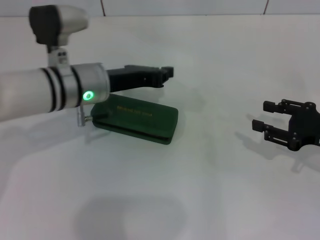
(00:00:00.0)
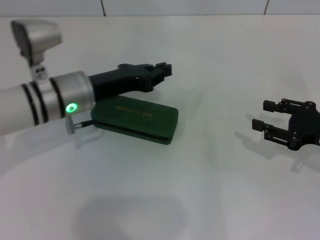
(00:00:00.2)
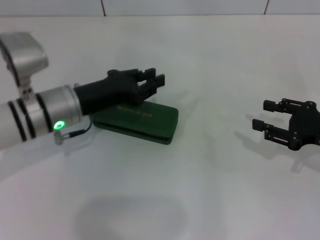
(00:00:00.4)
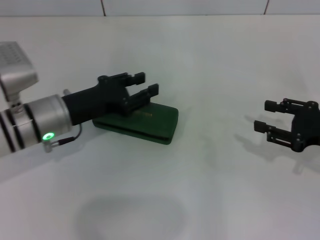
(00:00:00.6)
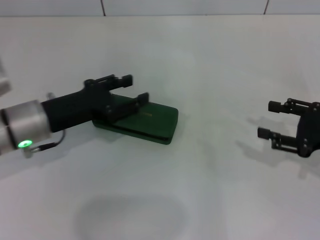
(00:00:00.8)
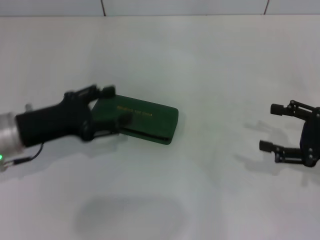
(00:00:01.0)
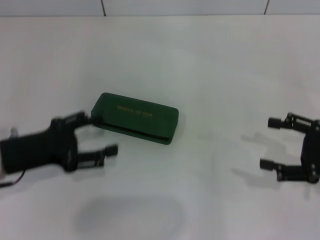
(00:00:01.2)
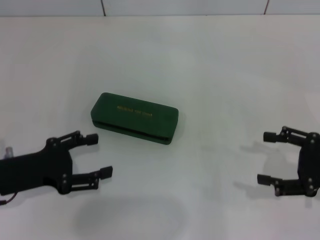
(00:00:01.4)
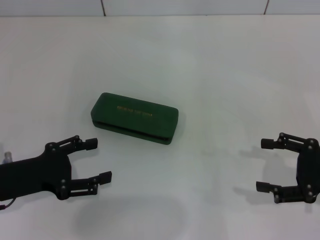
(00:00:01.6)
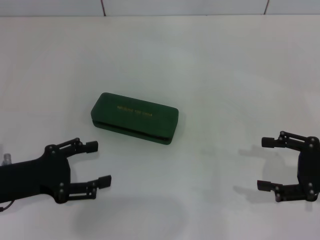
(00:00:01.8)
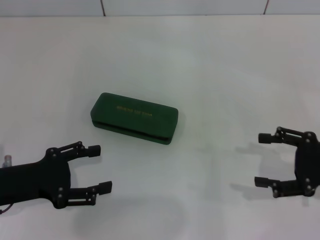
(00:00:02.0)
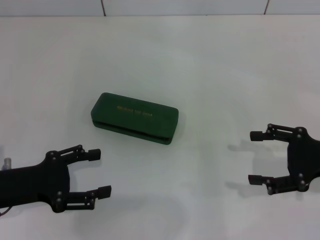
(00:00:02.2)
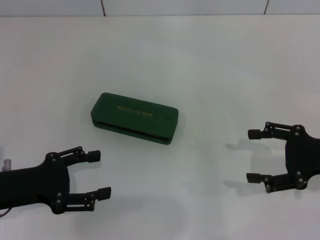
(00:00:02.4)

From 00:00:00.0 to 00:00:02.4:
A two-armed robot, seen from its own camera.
From 00:00:00.0 to 00:00:01.2: The left gripper goes about 15 cm to the left and backward, and opens its fingers.
From 00:00:01.2 to 00:00:02.4: There are only small adjustments of the grippers.
